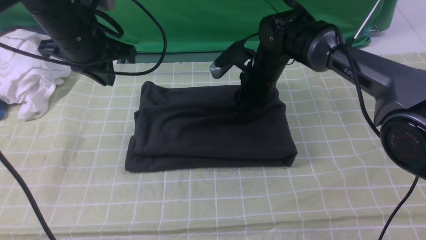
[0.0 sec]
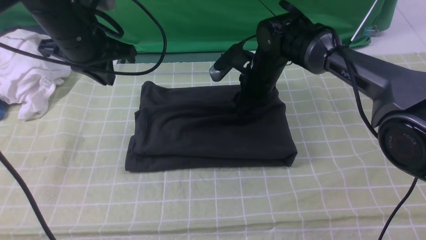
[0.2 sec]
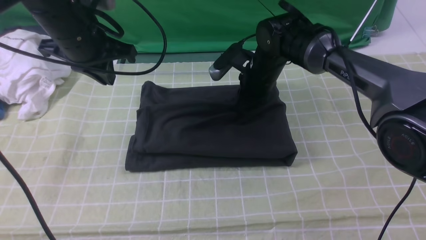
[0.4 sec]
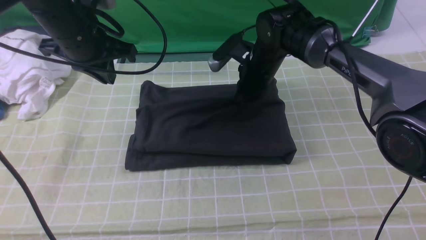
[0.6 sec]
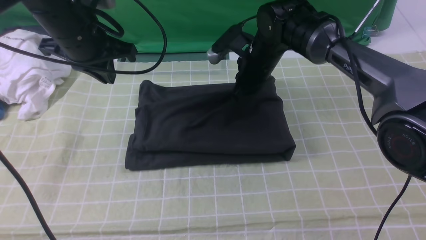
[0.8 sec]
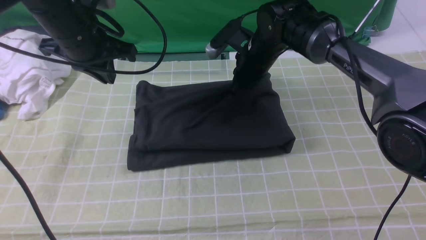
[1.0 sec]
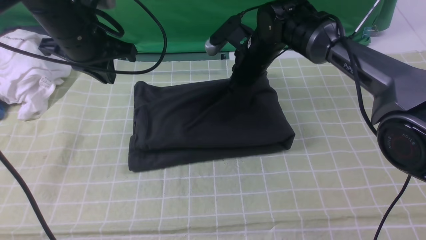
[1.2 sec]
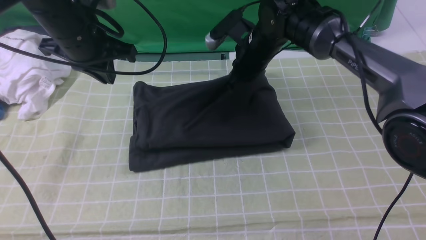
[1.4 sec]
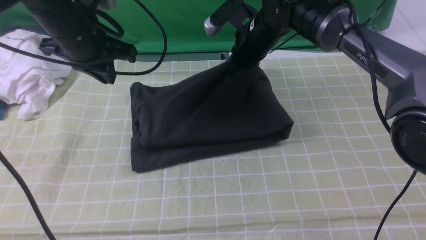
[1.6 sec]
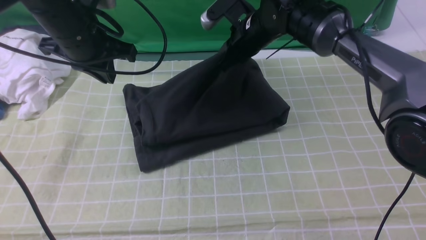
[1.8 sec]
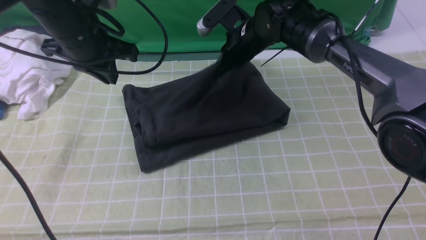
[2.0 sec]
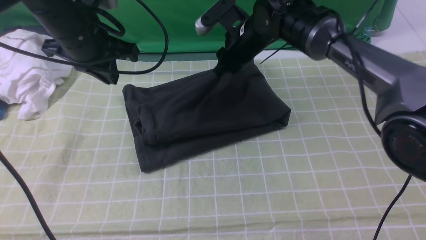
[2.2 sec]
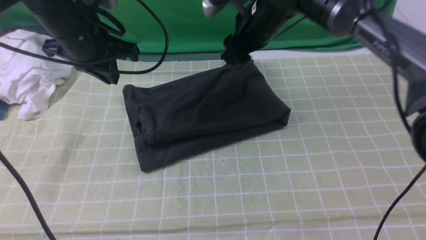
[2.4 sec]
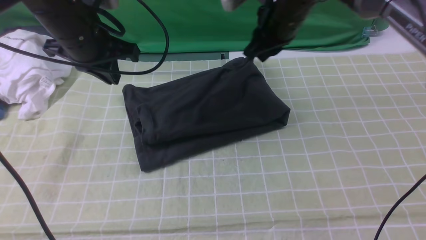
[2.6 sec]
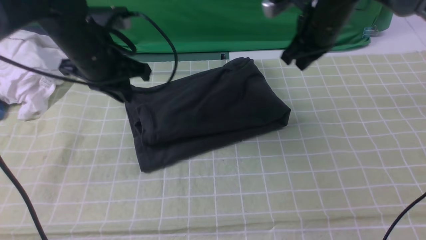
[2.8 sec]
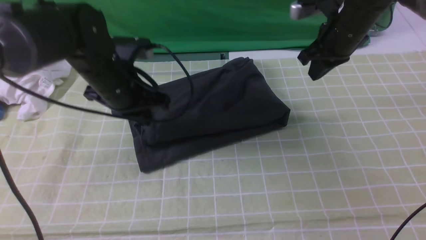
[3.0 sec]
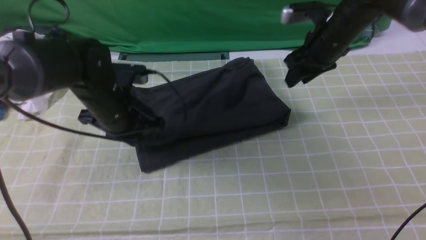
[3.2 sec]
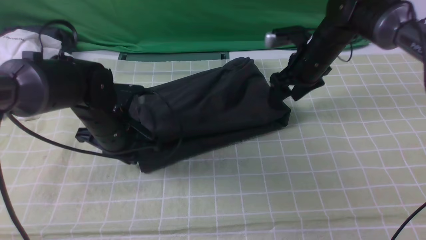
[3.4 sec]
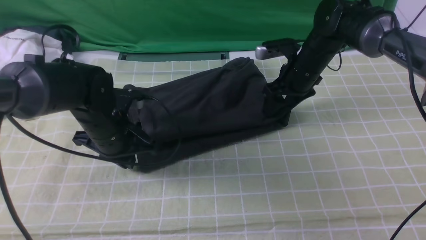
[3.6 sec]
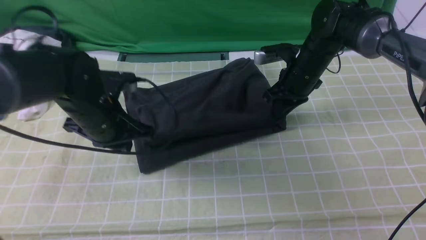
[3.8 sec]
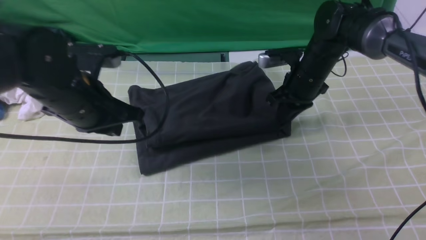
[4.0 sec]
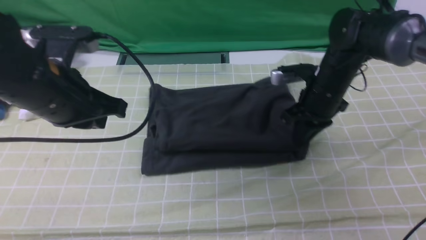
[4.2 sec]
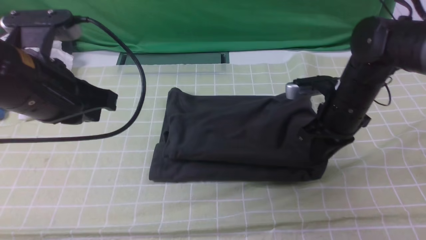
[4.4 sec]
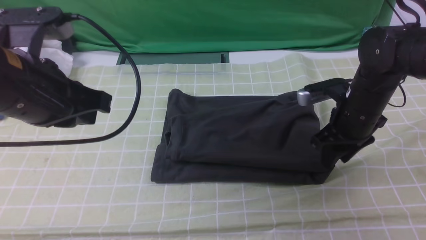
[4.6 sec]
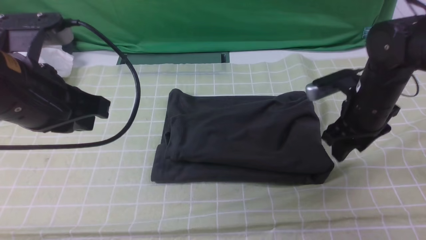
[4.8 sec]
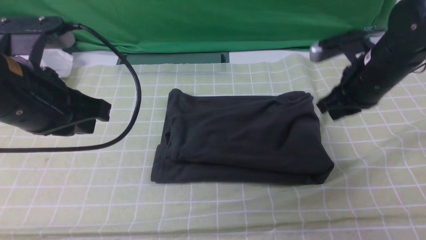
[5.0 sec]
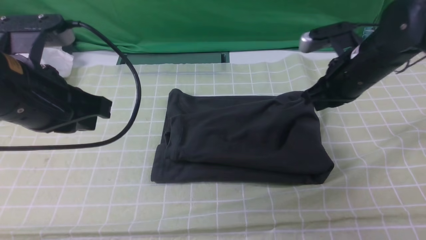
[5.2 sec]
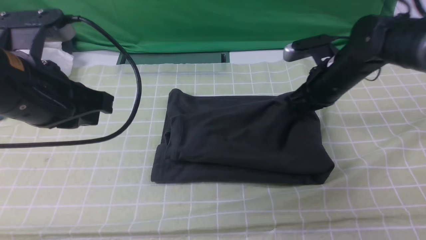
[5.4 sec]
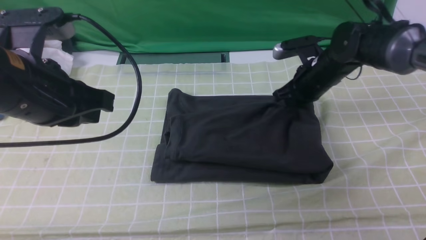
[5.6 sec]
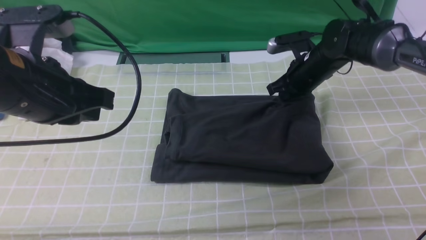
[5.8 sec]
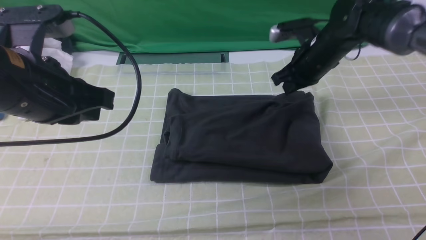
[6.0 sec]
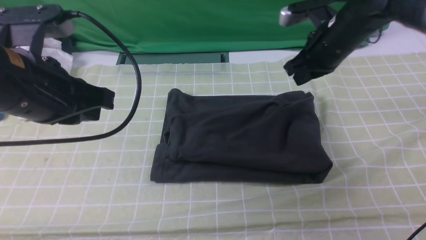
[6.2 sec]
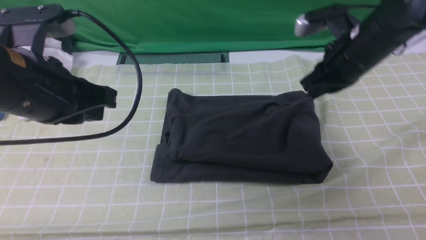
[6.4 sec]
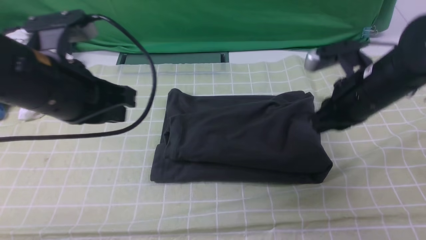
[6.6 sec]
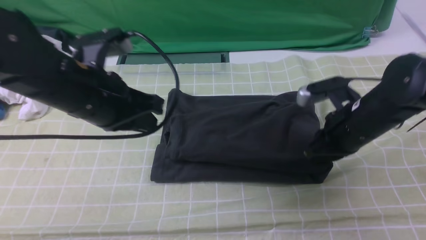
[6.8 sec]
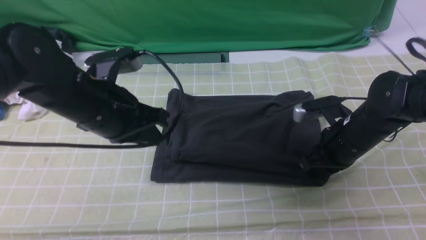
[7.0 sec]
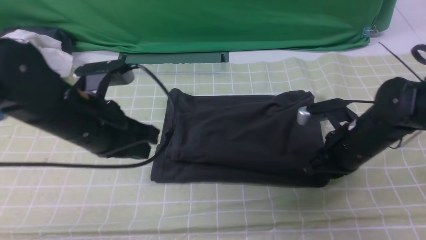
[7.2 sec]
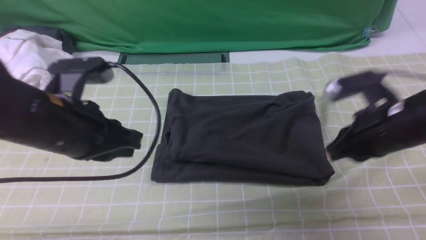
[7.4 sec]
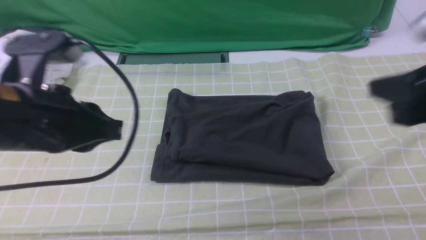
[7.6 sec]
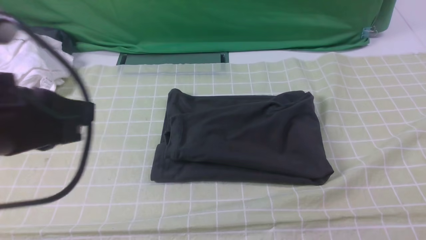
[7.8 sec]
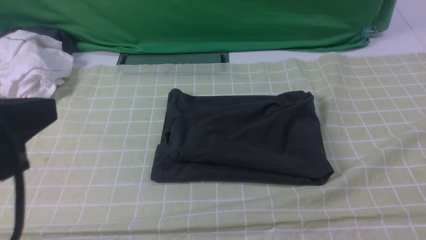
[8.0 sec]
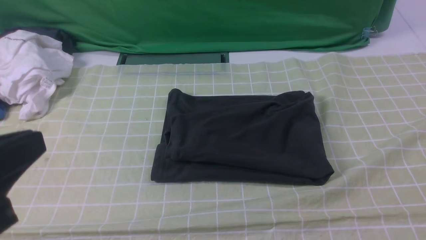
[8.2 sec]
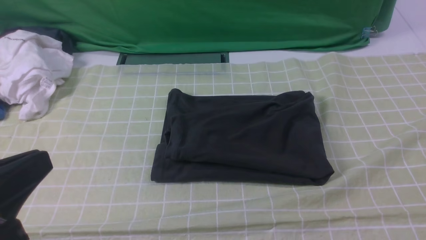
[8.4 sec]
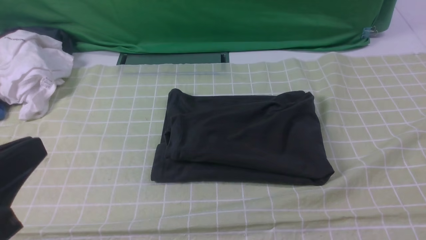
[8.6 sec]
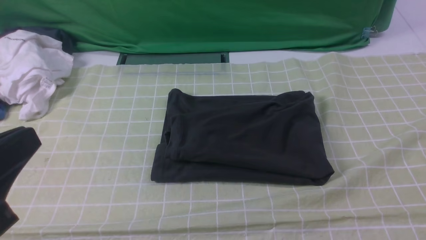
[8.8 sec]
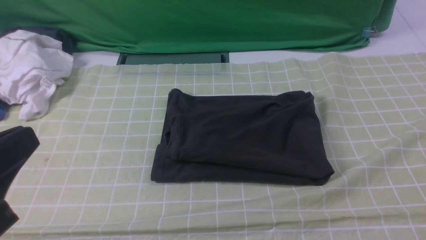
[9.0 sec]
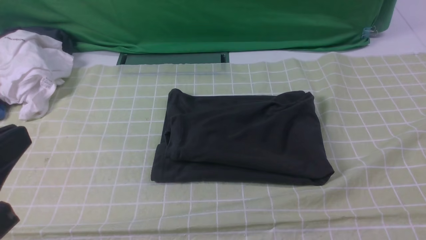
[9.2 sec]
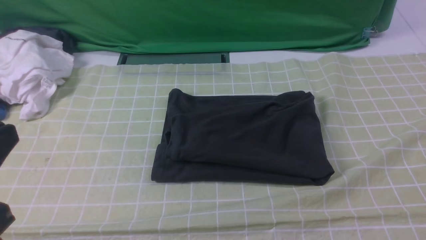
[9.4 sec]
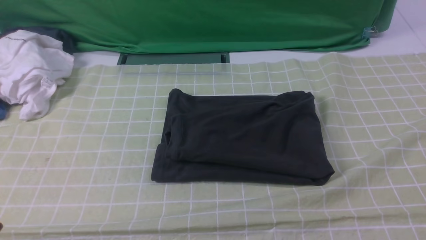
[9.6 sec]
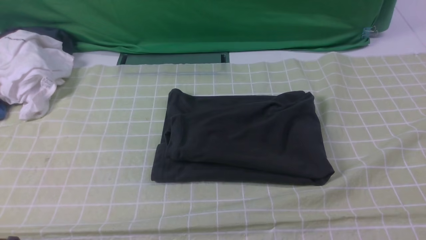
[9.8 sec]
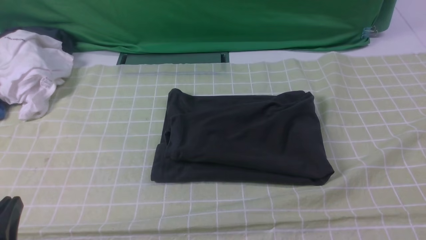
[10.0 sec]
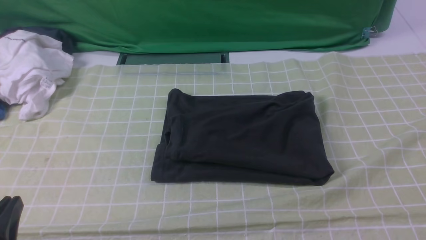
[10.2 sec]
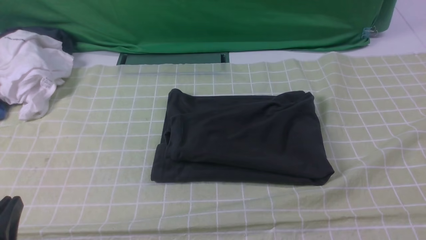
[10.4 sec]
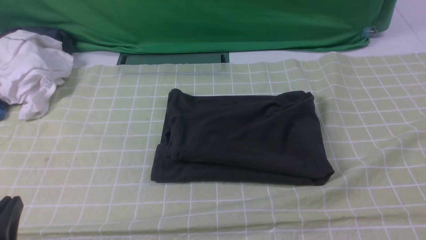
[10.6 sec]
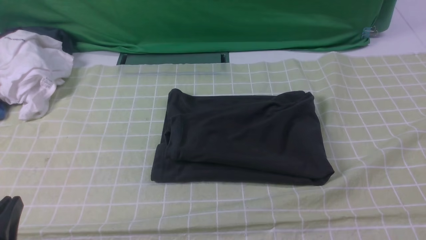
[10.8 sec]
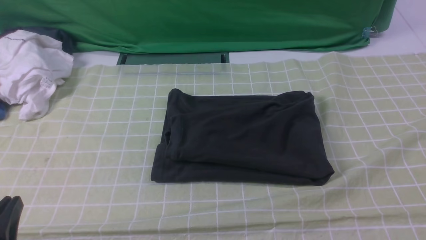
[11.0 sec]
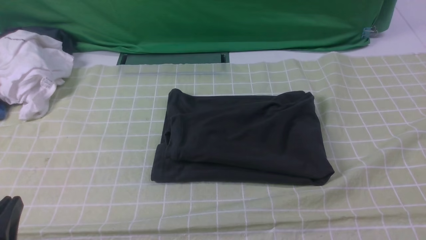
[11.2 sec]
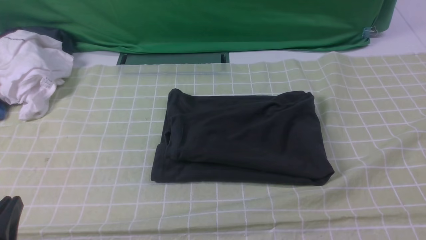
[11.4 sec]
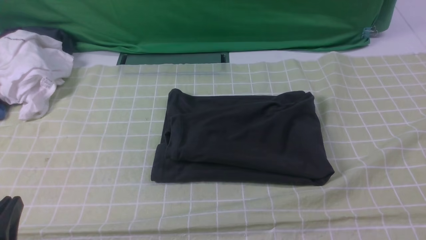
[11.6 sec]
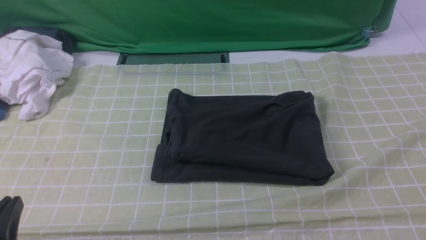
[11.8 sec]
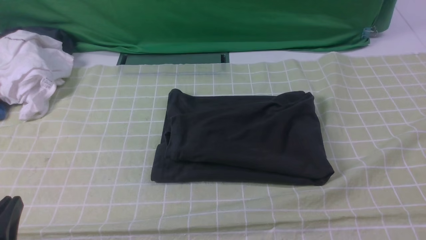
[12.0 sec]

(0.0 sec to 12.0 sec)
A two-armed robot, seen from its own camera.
0.0 sec - 1.6 sec: The right gripper moves upward, roughly 5 cm, and closes.
1.6 sec - 3.0 sec: The right gripper is displaced to the right by some 10 cm. Meanwhile the left gripper shifts approximately 10 cm downward.
3.0 sec - 4.4 sec: The right gripper is displaced backward and downward by roughly 10 cm, and opens, then closes again. Meanwhile the left gripper is displaced backward and upward by approximately 15 cm.
4.4 sec - 6.0 sec: The right gripper travels forward by some 10 cm.
6.0 sec - 7.6 sec: The right gripper heads backward and upward, covering approximately 30 cm.
7.6 sec - 9.0 sec: The left gripper goes approximately 10 cm backward. The right gripper moves backward and to the right, some 15 cm.
9.0 sec - 10.4 sec: The left gripper moves downward, some 15 cm.

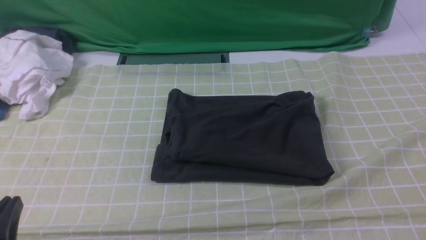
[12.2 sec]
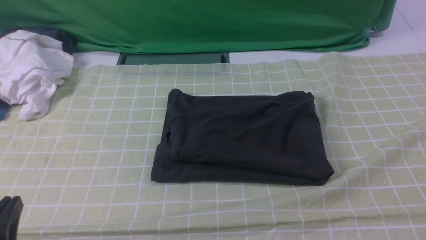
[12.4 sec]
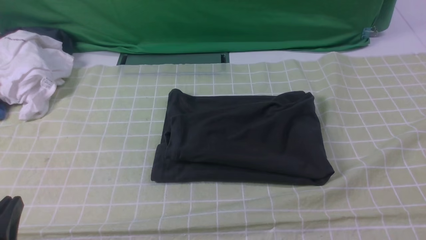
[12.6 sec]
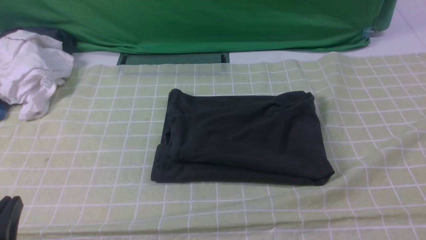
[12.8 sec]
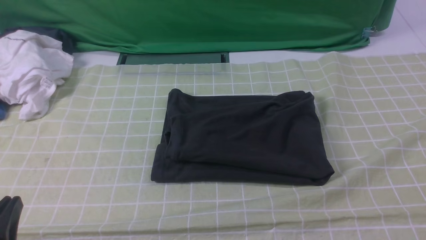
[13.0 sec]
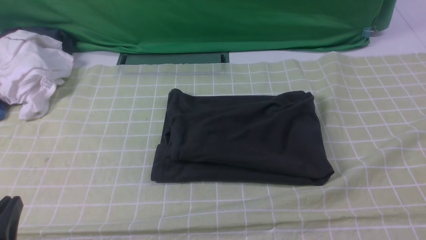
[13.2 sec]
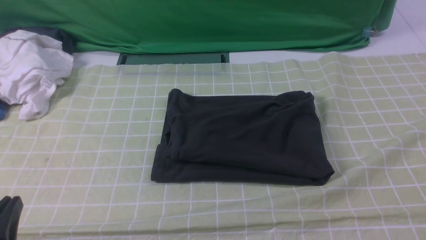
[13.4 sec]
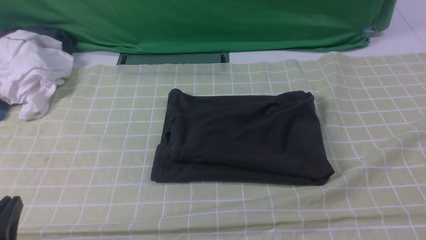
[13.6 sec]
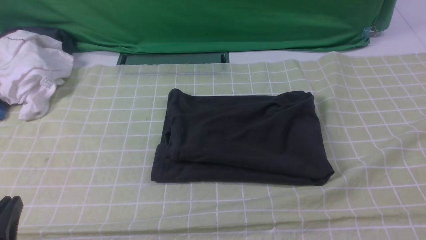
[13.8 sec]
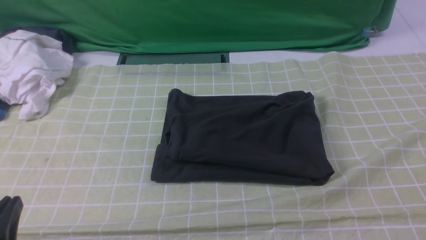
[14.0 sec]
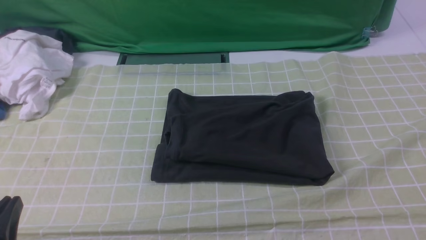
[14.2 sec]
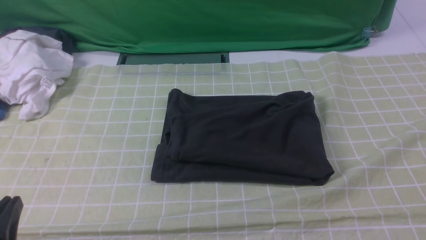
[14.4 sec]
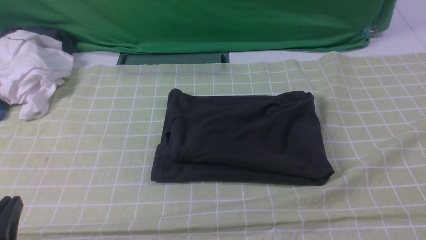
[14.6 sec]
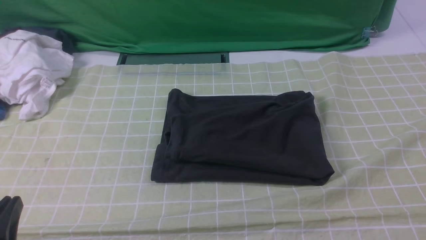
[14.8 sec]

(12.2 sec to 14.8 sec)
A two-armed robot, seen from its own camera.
13.4 sec - 14.8 sec: Neither gripper changes place.
